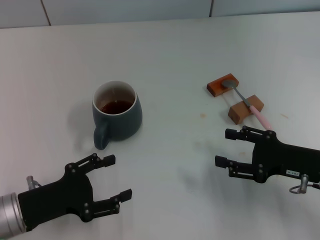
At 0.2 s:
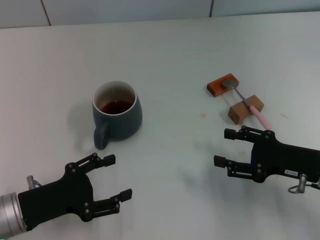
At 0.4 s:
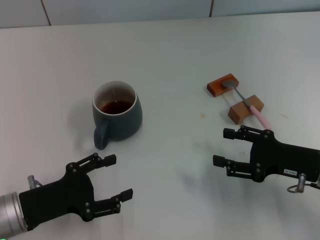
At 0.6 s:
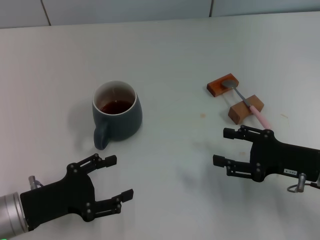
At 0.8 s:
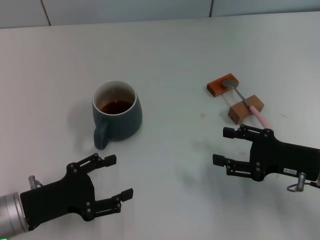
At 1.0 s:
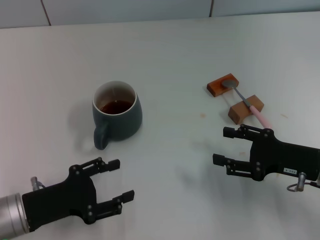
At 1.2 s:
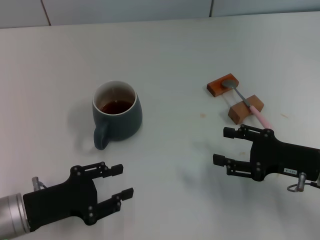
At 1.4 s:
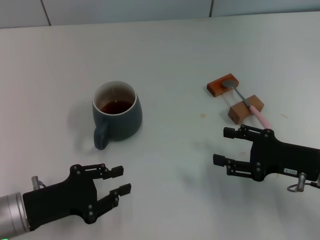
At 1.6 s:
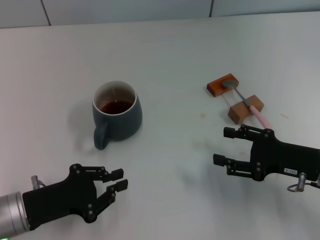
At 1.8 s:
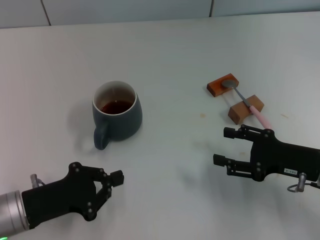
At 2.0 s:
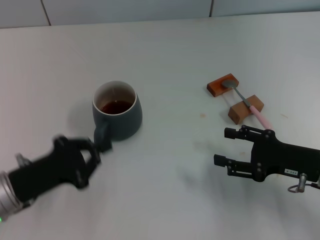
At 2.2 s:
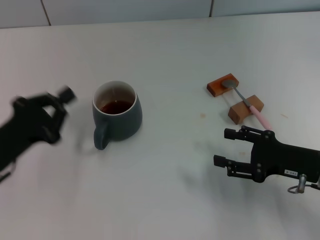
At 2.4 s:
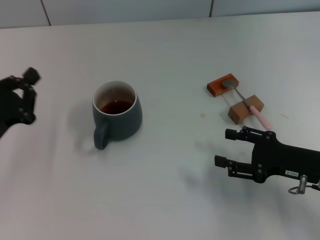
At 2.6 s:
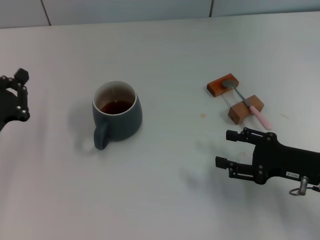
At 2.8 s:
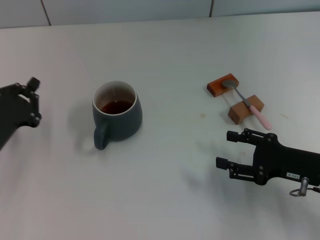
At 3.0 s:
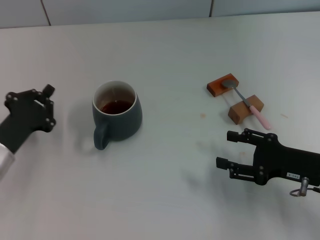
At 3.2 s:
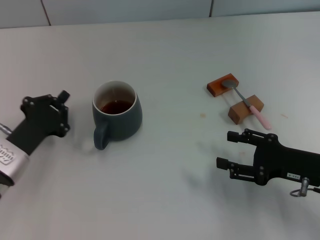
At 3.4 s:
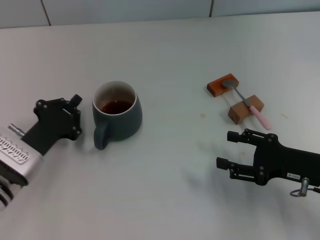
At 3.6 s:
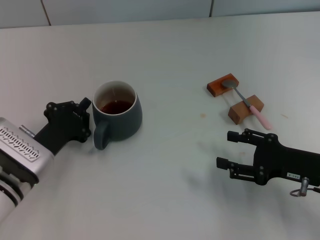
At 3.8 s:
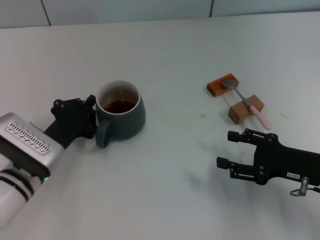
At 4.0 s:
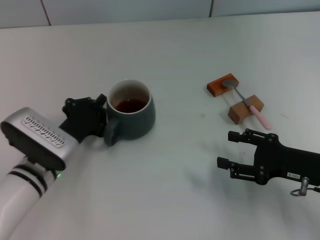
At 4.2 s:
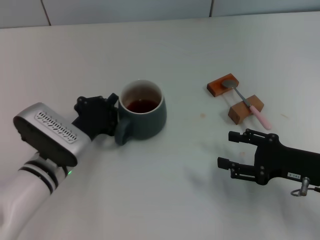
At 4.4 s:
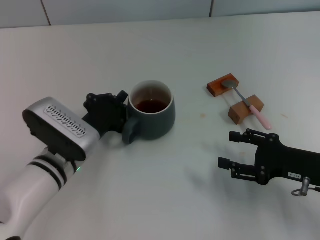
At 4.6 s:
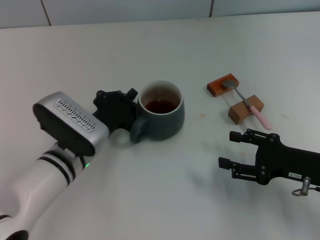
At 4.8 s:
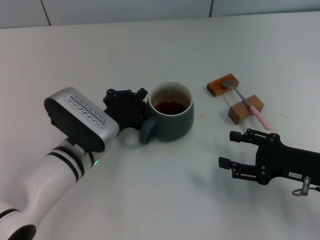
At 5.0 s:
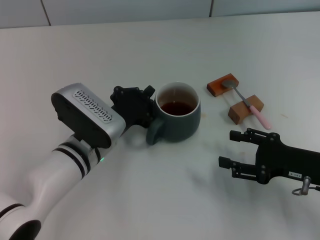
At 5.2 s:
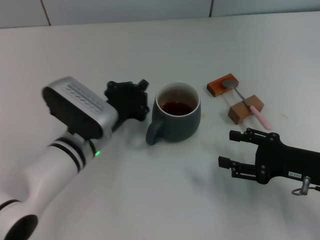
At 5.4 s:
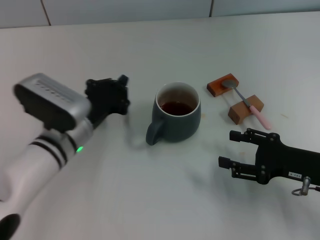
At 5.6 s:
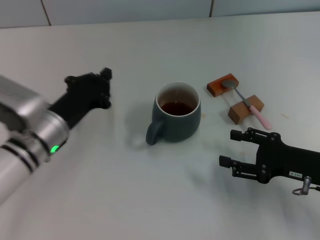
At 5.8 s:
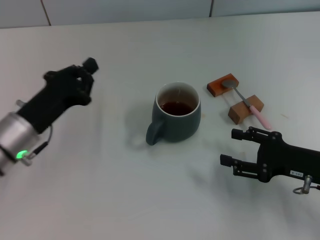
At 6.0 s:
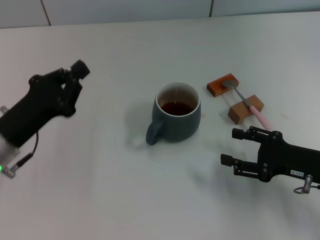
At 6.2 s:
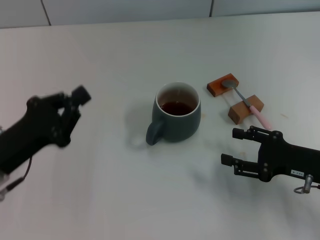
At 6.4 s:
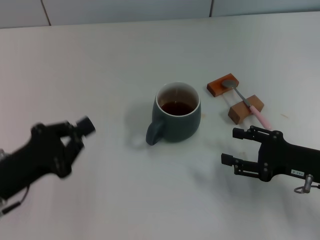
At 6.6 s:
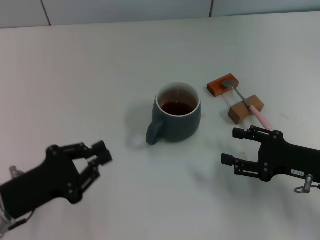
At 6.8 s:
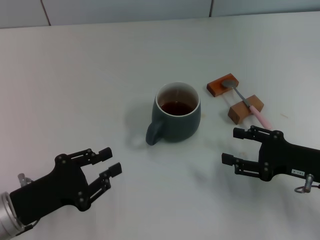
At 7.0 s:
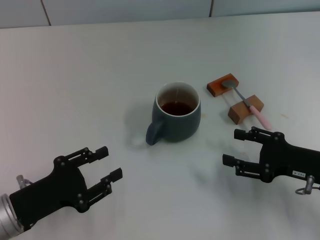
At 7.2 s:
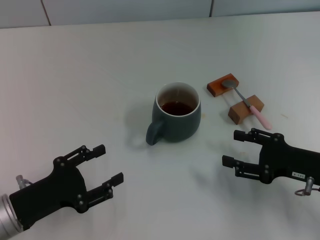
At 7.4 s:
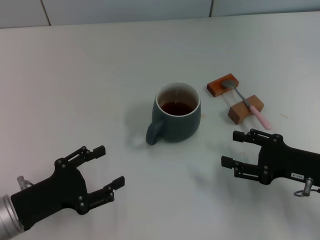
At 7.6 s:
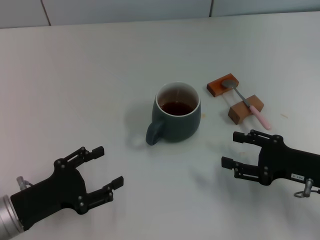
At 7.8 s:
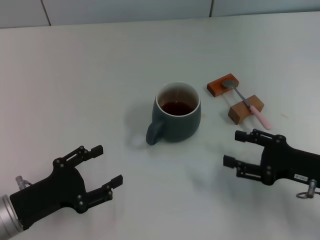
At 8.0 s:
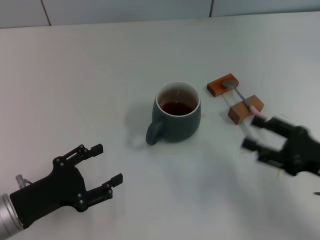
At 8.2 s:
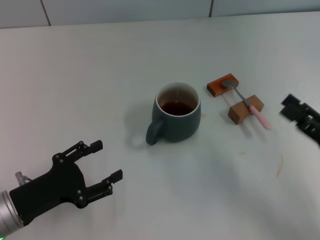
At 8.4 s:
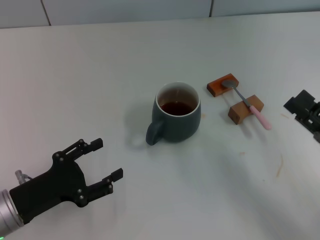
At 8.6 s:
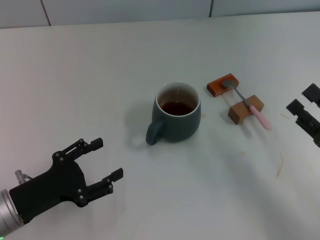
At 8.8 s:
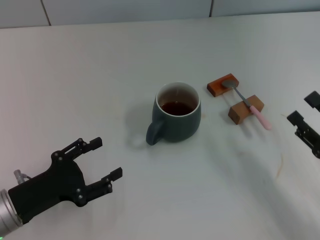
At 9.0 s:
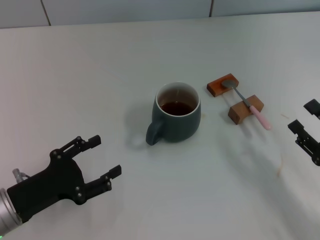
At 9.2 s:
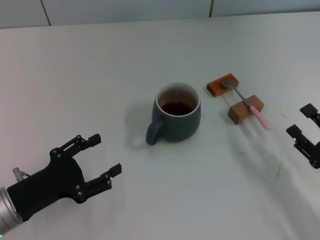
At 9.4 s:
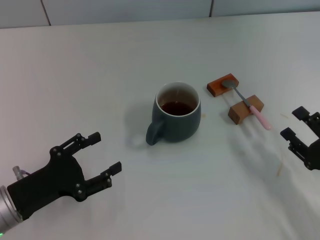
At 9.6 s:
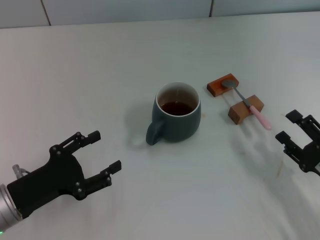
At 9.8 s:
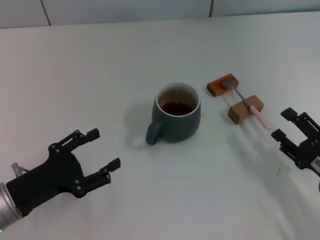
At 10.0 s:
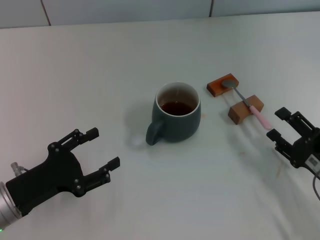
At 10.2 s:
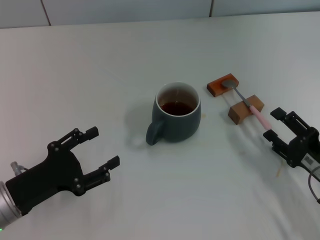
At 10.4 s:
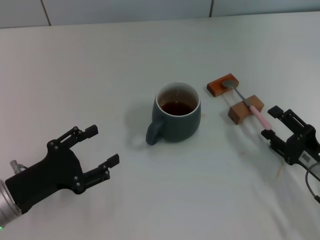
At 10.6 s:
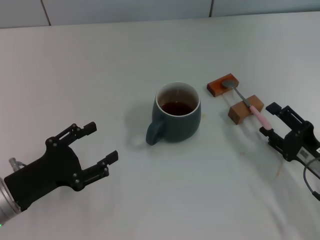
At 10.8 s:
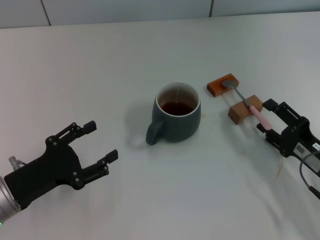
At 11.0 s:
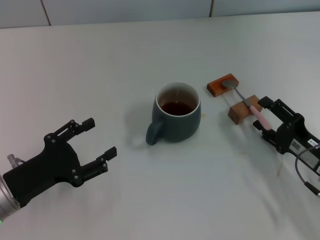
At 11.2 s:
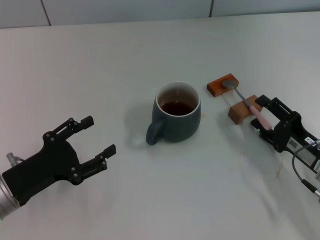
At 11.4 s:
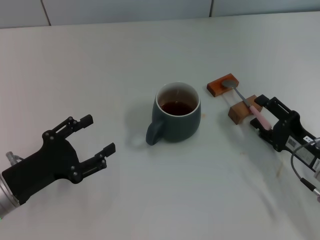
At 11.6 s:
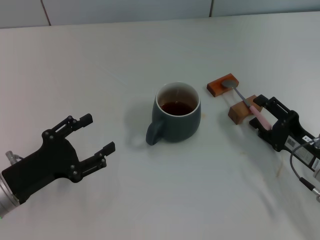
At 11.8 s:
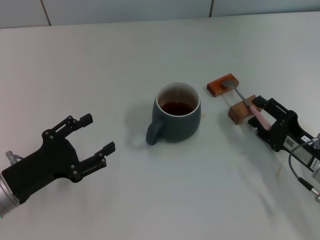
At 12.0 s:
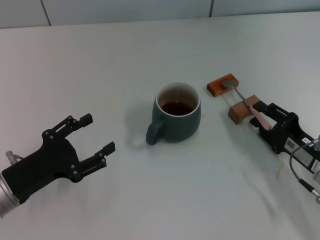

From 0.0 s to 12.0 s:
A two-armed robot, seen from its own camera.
Task of the whole recording: Move the grey cup to the center, lift the pink spoon, stir it three times in the cup, and put the spoon into the cup.
Step, from 0.0 s to 5.4 s: Move the cup with coffee to the center of view with the left gripper.
From 0.0 s to 1.6 s: The left gripper closes its fingers.
From 1.6 s to 3.0 s: The left gripper shifts approximately 5 cm forward.
From 3.0 s to 4.4 s: The left gripper goes some 10 cm to the right.
From 4.4 s to 6.0 s: The left gripper moves to the left and upward, approximately 10 cm.
From 6.0 s to 7.6 s: The left gripper moves backward, about 5 cm, and opens up.
From 7.6 s to 9.0 s: The right gripper heads backward, covering some 5 cm.
From 9.0 s to 10.4 s: There are only small adjustments of the grippers.
From 10.4 s to 12.0 s: The grippers stay close to where they were, moving slightly.

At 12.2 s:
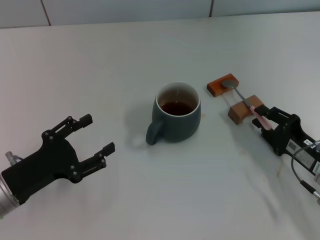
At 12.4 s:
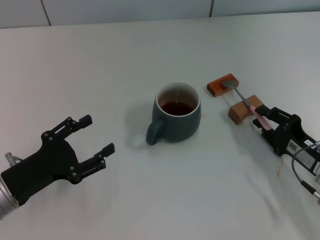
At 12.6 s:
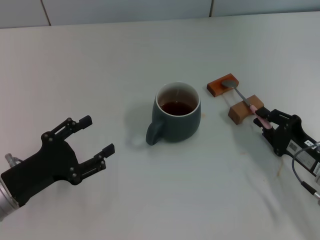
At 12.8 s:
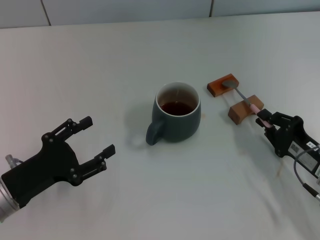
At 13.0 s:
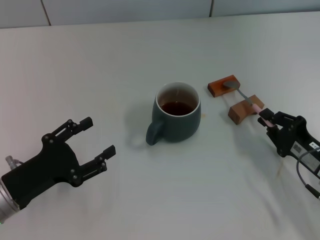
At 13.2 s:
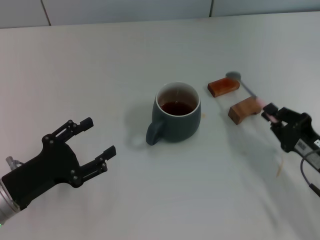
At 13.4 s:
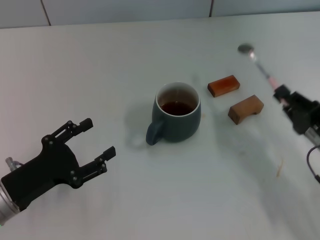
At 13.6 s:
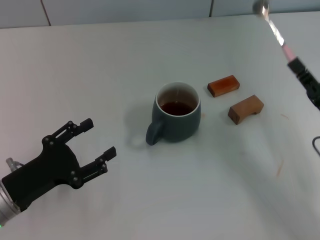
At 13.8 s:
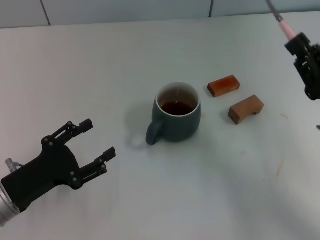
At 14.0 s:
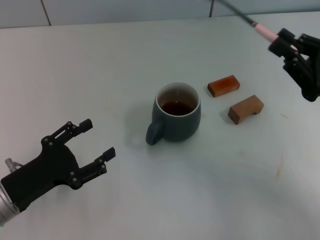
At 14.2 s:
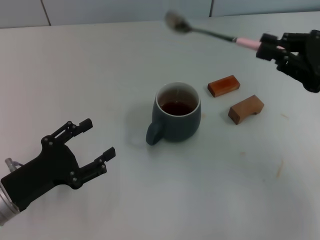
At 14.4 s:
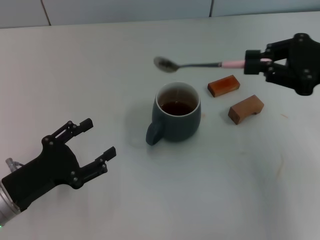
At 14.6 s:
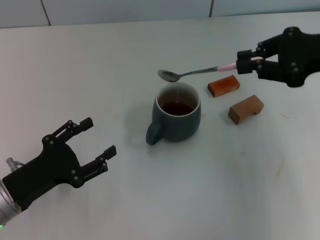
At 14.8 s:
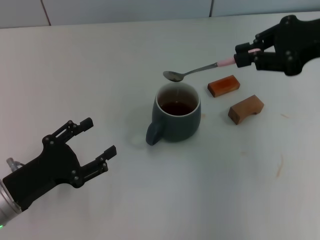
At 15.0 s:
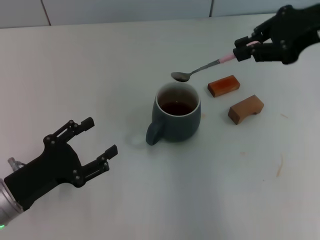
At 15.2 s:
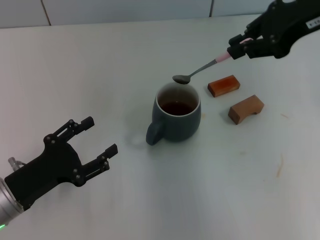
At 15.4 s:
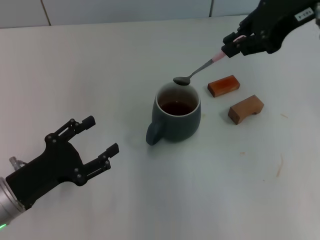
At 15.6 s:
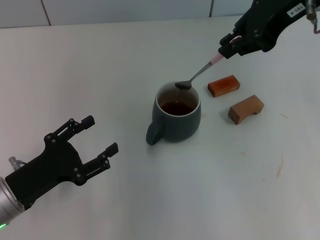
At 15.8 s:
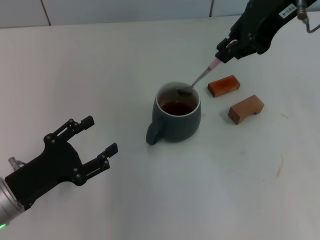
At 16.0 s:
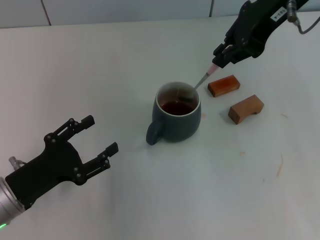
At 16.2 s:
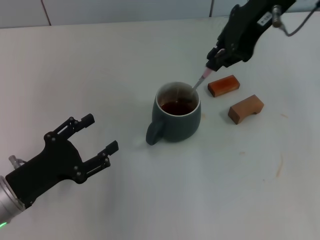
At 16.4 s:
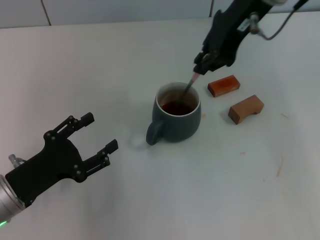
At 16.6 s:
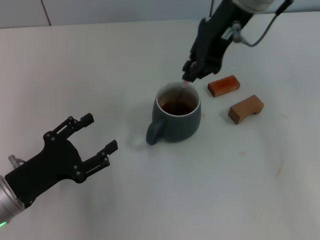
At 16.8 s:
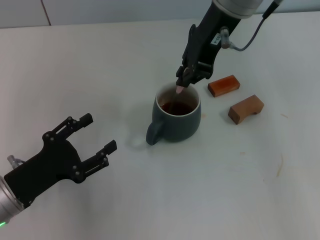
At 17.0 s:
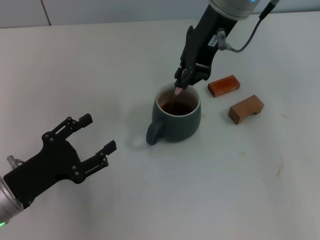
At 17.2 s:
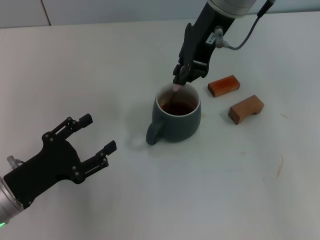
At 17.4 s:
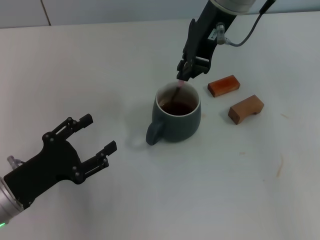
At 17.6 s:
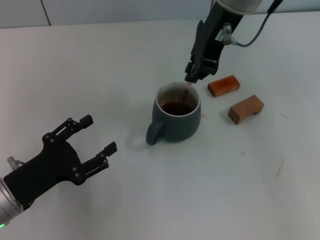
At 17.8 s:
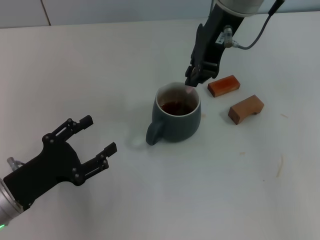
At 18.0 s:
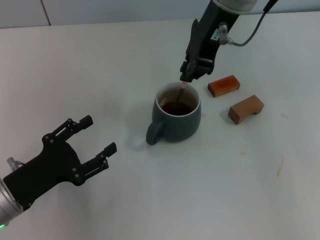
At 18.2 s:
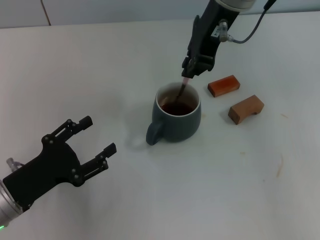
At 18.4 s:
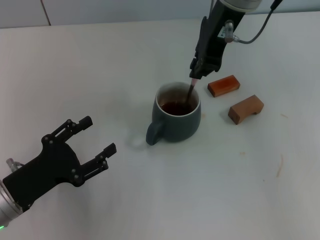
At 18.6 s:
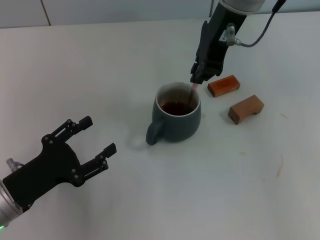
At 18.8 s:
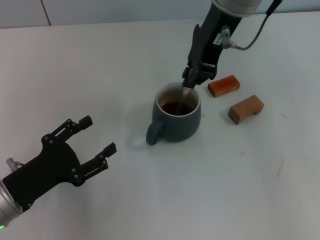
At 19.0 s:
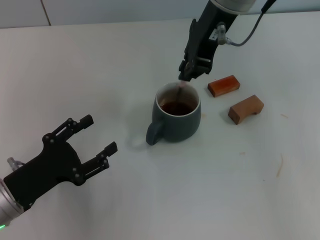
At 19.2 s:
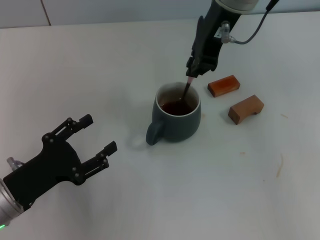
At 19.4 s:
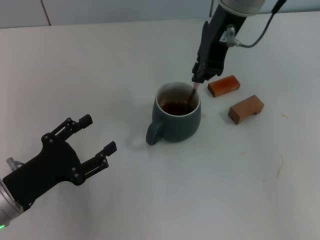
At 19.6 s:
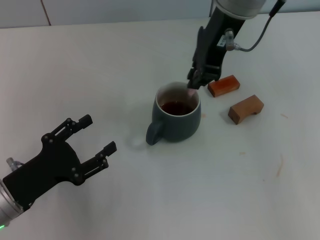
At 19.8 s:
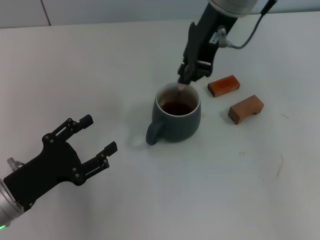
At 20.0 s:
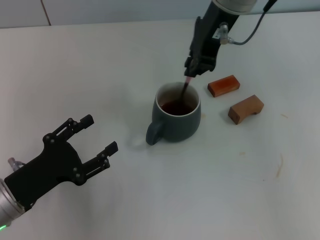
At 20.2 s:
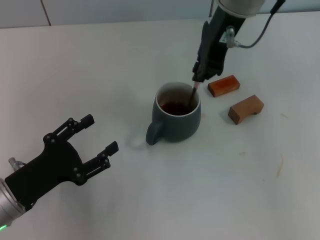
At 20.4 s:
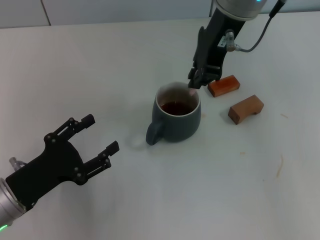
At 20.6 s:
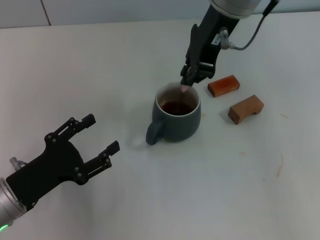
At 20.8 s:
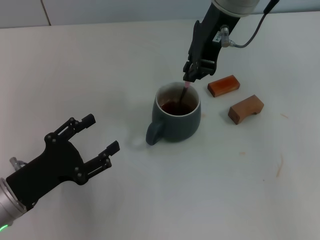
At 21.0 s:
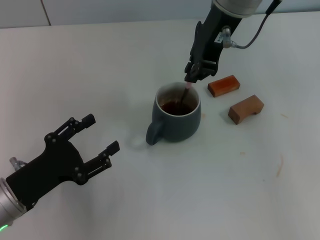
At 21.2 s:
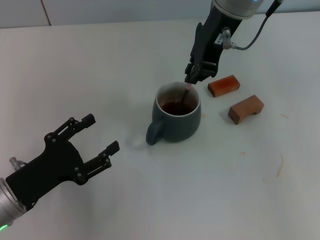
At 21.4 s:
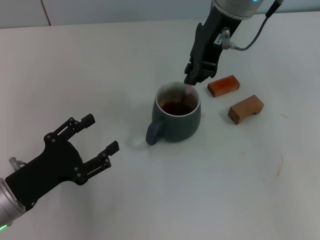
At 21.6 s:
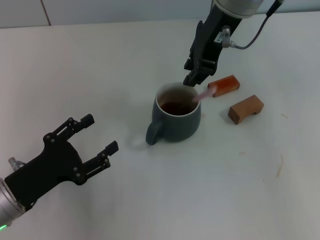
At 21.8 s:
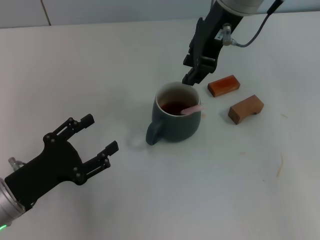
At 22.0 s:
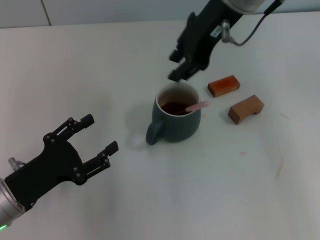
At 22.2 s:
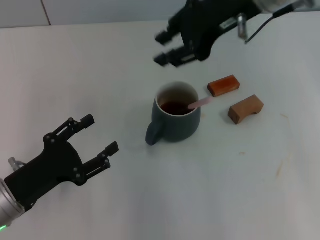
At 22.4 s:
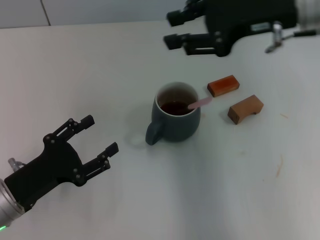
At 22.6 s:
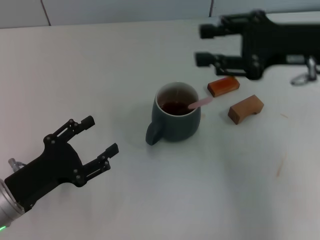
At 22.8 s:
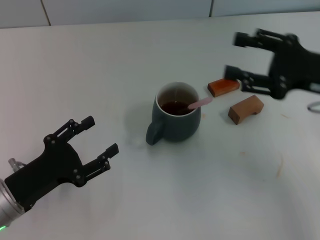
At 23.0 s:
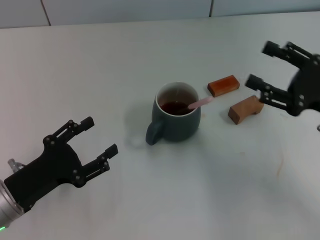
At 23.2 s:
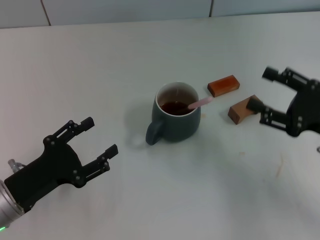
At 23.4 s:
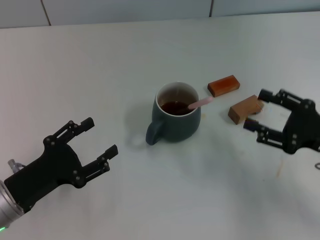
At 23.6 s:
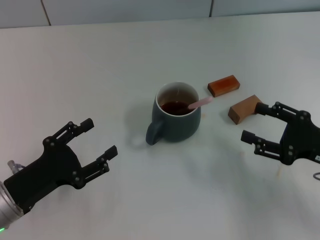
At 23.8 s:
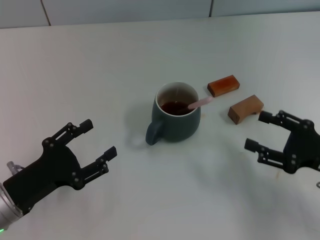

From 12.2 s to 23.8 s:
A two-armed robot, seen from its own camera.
Task of the whole recording: Move the grey cup to the center, lift the pink spoon, stir it three times in the cup, and put the spoon into the cup.
Step, from 14.0 s to 22.0 s: Stir the coffee in the cup with the right gripper.
From 12.2 s to 13.6 s: The right gripper shifts some 5 cm upward, and closes its fingers.
From 13.6 s to 15.0 s: The right gripper moves upward and forward, approximately 25 cm.
From 15.0 s to 16.6 s: The right gripper is displaced to the left by approximately 15 cm.
From 16.6 s to 18.0 s: There are only small adjustments of the grippers.
From 18.0 s to 19.4 s: Both grippers stay put.
From 19.4 s to 21.0 s: There are only small adjustments of the grippers.
From 21.0 s to 22.4 s: The right gripper shifts about 10 cm to the right, and opens.
From 22.4 s to 23.8 s: The right gripper is displaced downward, backward and to the right by some 25 cm, and opens up.
